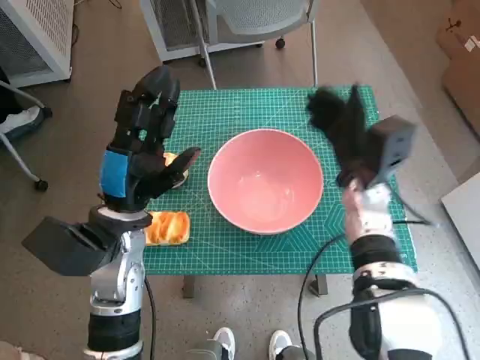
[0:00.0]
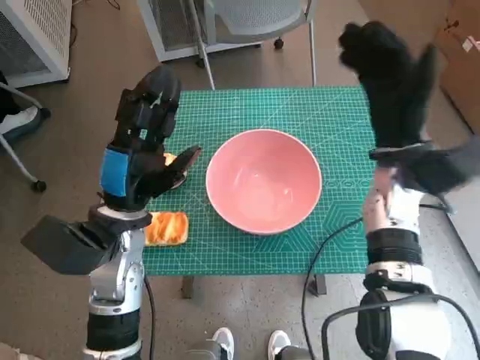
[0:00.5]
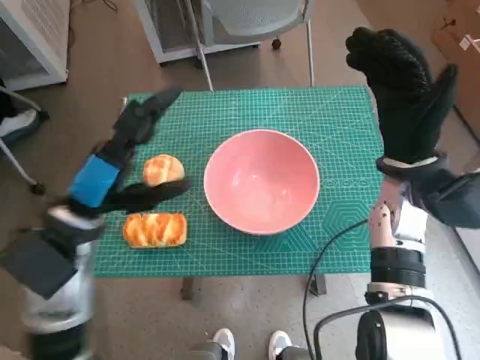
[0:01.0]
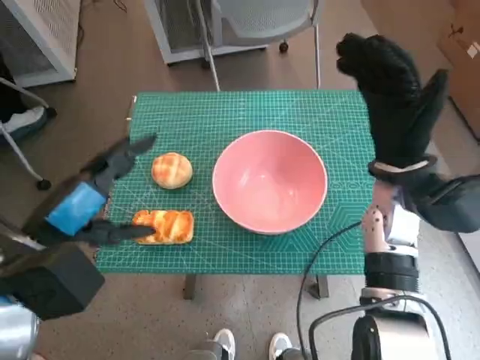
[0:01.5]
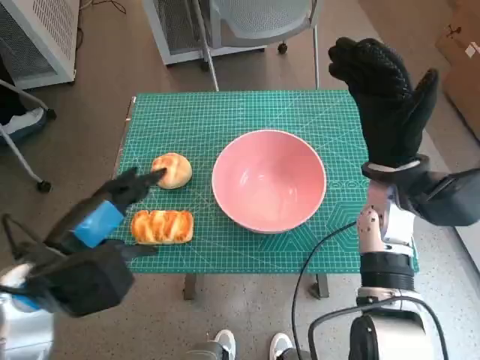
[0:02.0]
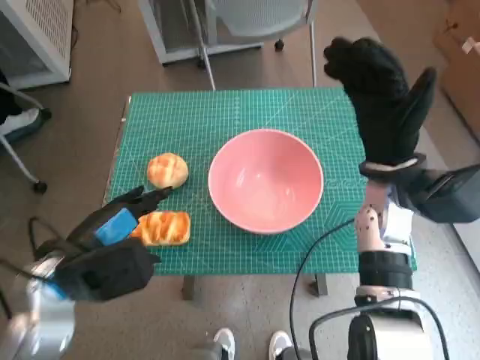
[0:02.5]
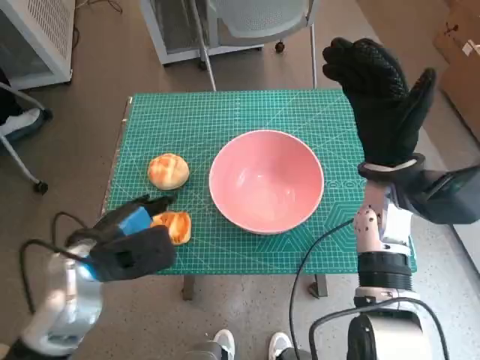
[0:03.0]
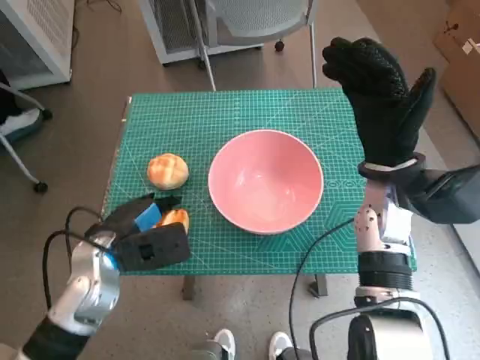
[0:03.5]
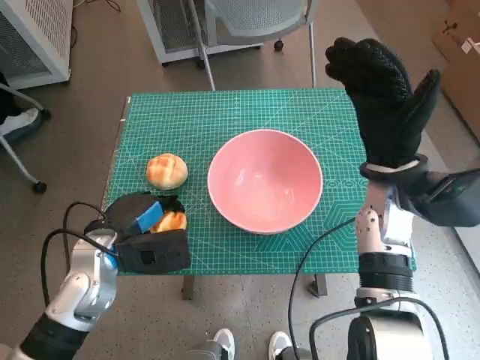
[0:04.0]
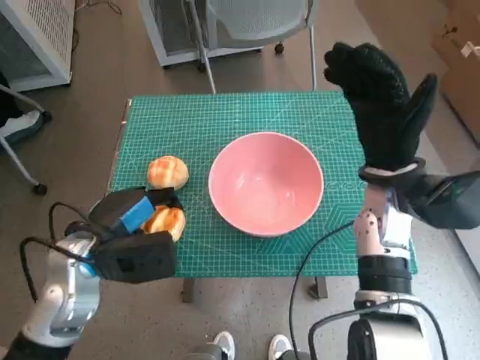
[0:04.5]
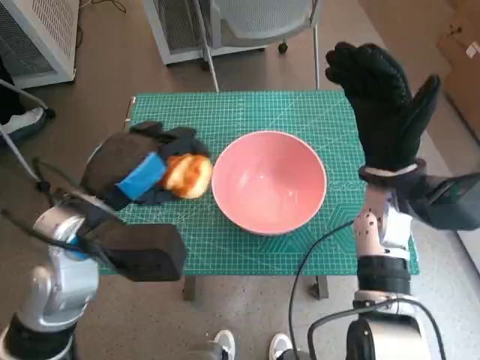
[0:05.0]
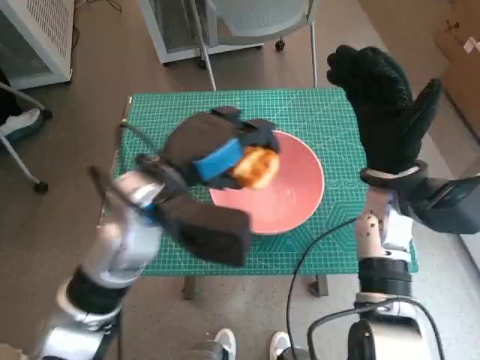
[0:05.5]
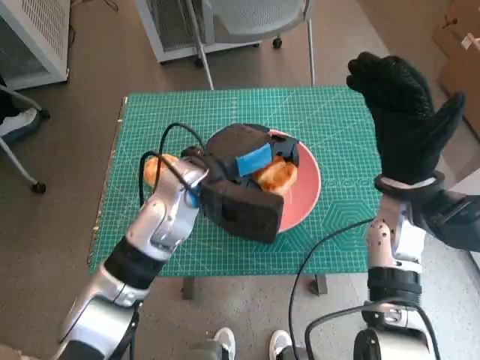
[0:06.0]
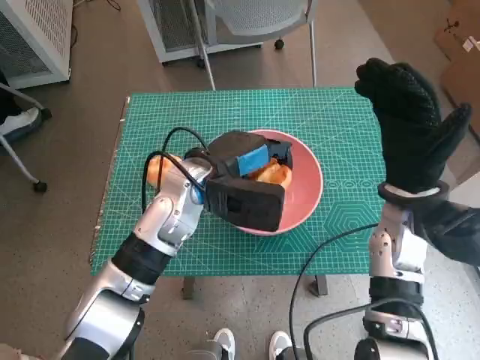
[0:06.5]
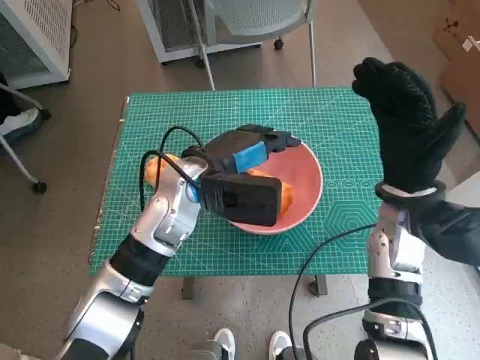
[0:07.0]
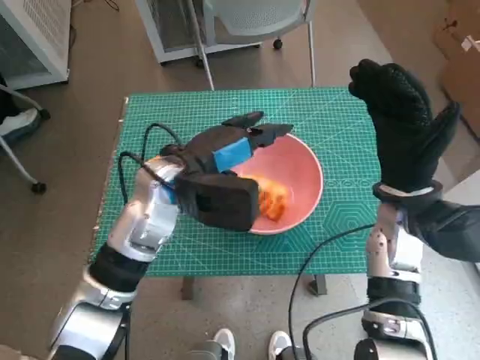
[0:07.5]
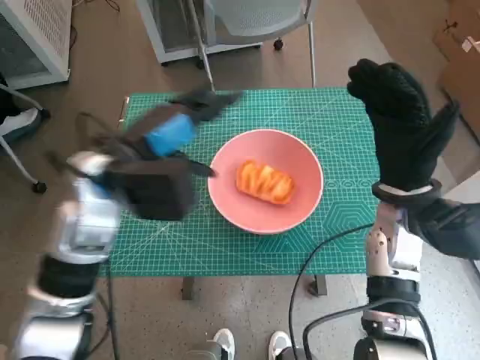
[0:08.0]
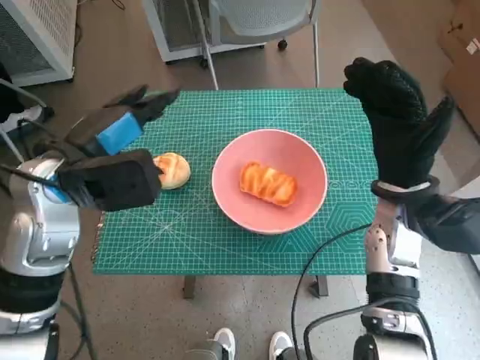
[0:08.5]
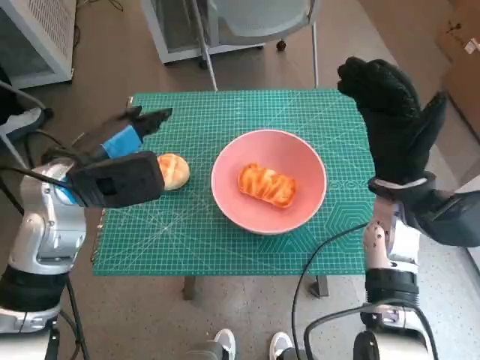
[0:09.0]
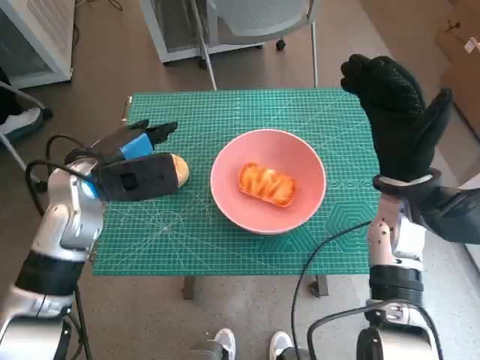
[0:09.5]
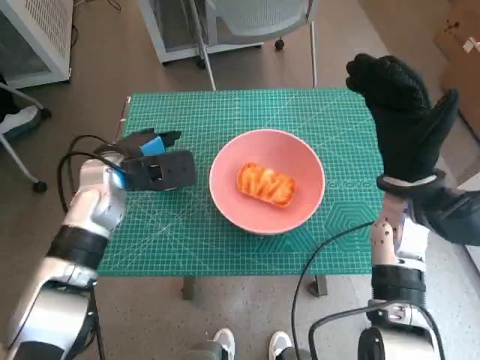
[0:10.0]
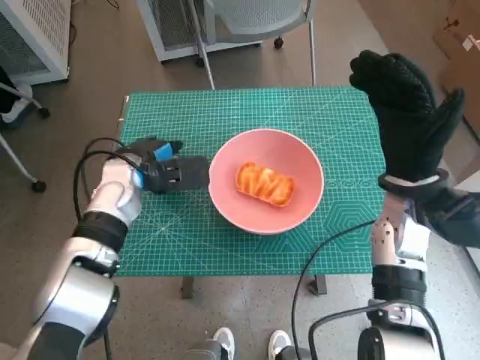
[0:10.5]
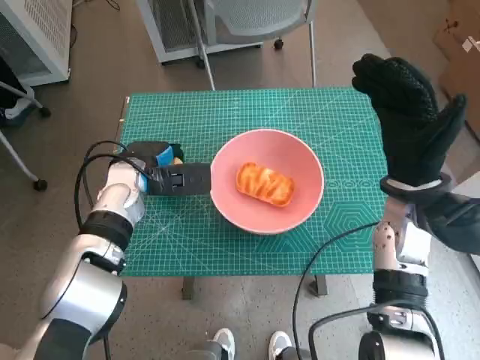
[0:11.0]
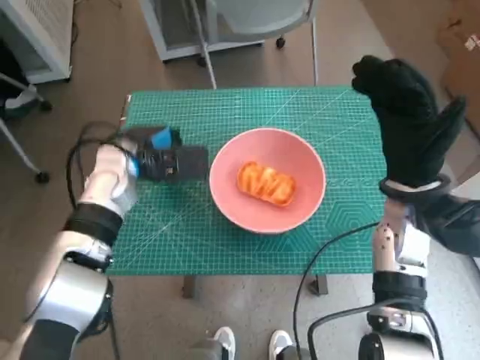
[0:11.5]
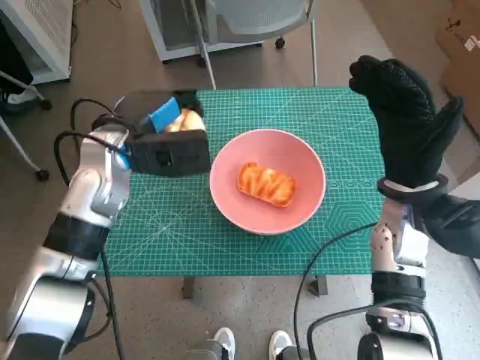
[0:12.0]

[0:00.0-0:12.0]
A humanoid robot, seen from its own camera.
Step, 0:00.0 to 0:03.5: Grasp the long bread with left hand.
Step, 0:04.0 to 0:07.0: Place the long bread in pink bowl with left hand.
Step, 0:07.5 to 0:11.0: Grasp the round bread with left hand.
0:00.0 to 0:02.0: The left hand shifts some 10 cm backward and to the left, while the right hand goes roughly 5 cm upward.
0:02.0 to 0:04.0: The left hand goes approximately 10 cm downward and forward.
0:04.0 to 0:06.0: The left hand is displaced to the right, upward and forward by some 15 cm.
0:06.0 to 0:08.0: The left hand shifts about 10 cm to the left.
0:08.0 to 0:10.0: The left hand goes approximately 5 cm downward.
0:10.0 to 0:12.0: The left hand ends up some 5 cm from where it was.

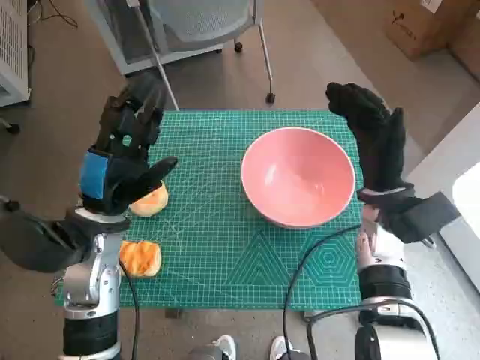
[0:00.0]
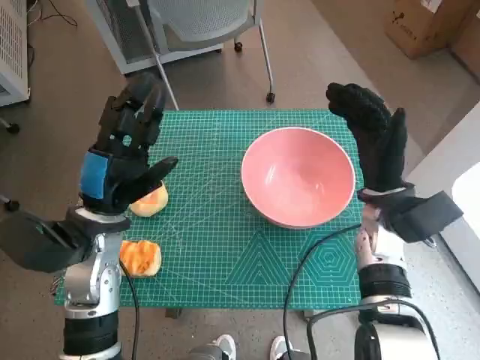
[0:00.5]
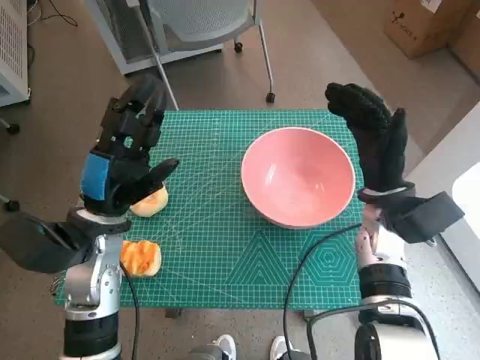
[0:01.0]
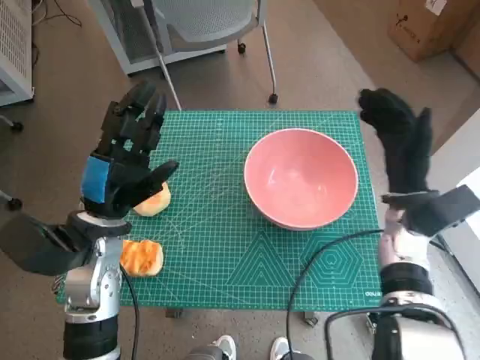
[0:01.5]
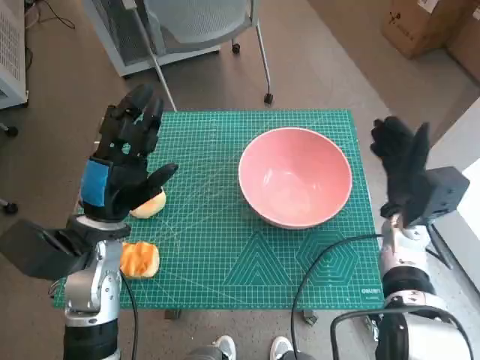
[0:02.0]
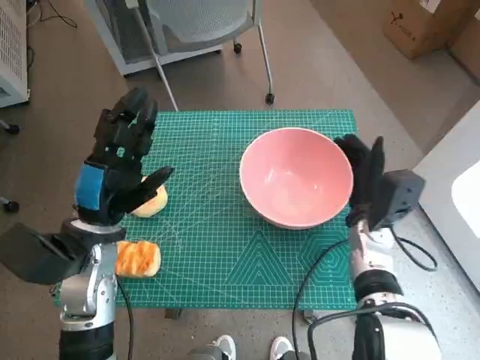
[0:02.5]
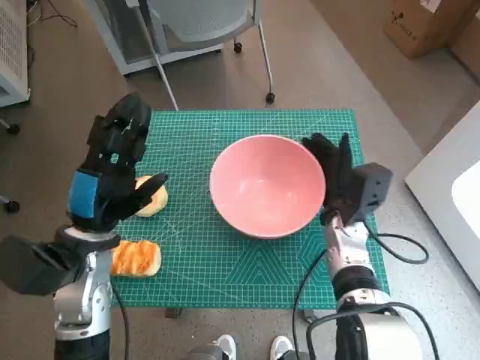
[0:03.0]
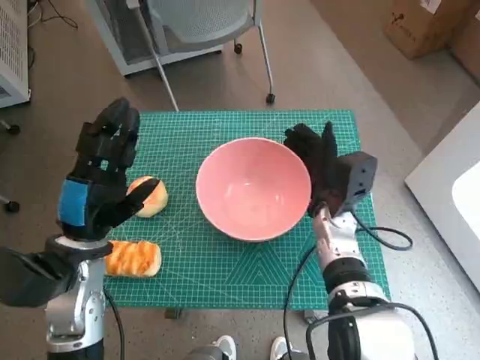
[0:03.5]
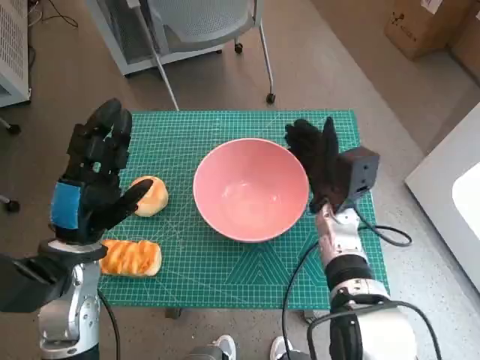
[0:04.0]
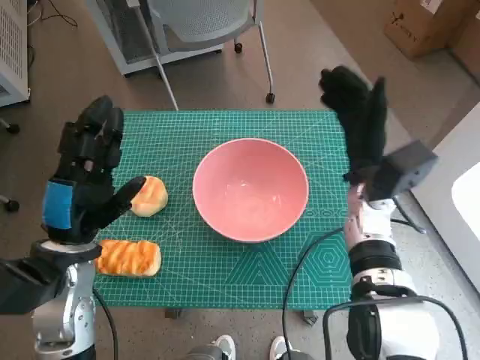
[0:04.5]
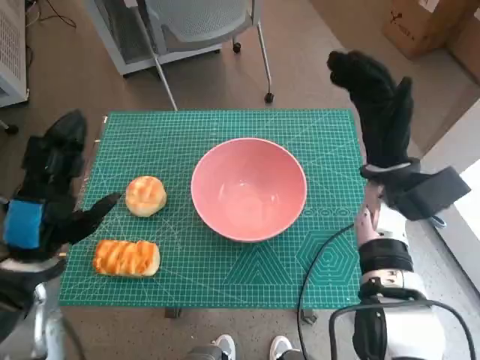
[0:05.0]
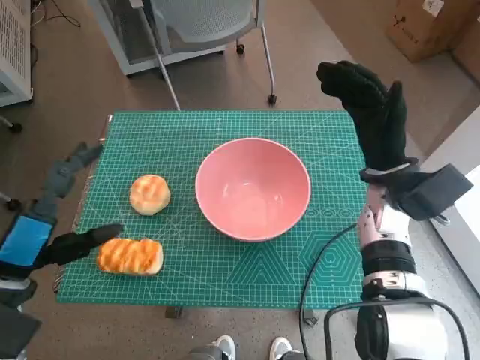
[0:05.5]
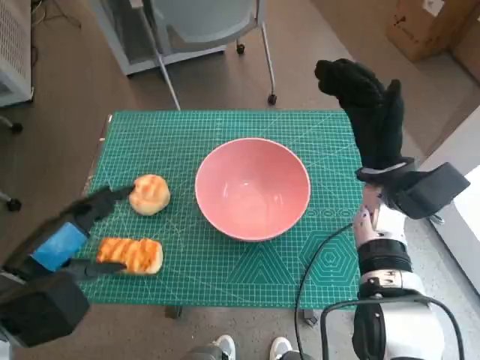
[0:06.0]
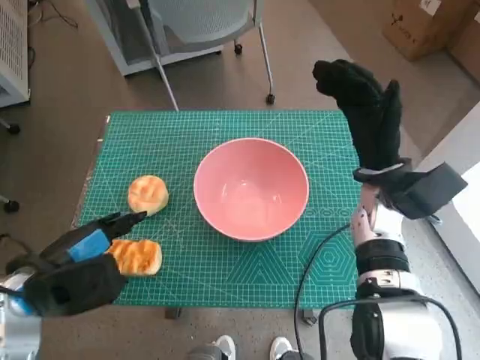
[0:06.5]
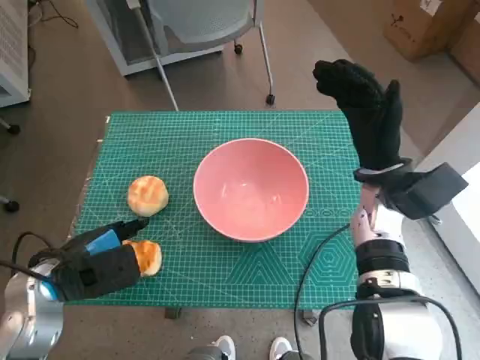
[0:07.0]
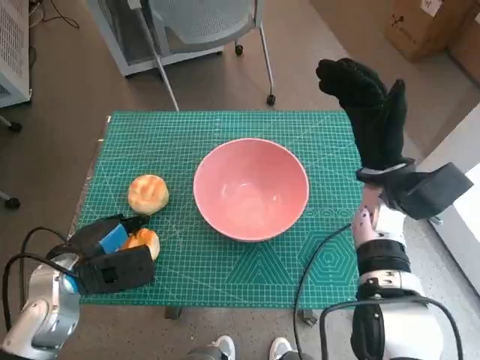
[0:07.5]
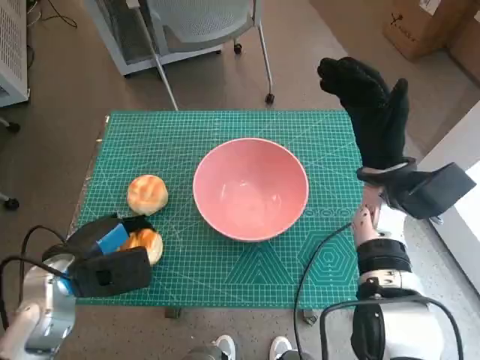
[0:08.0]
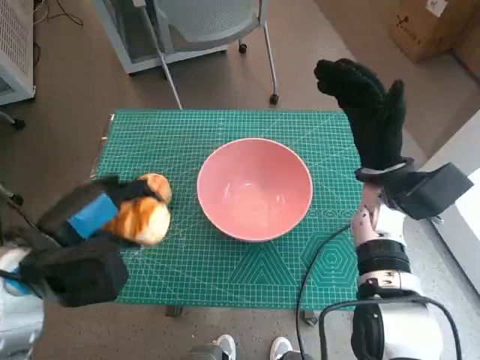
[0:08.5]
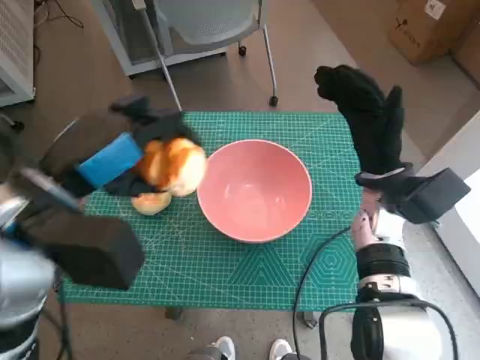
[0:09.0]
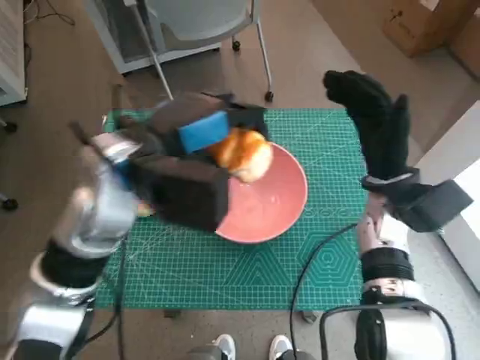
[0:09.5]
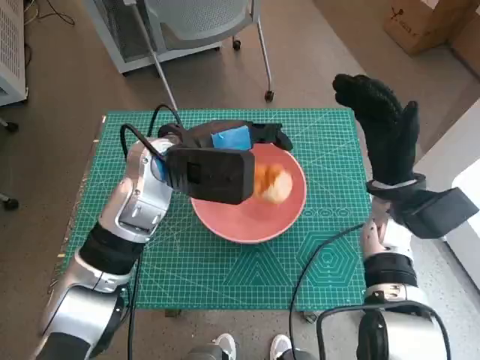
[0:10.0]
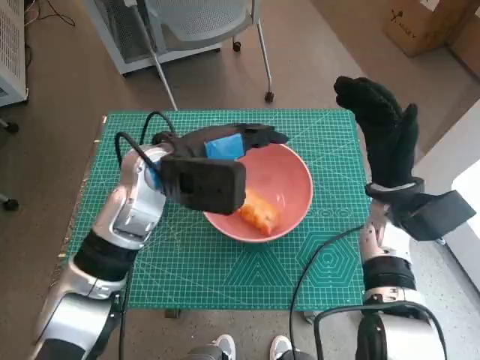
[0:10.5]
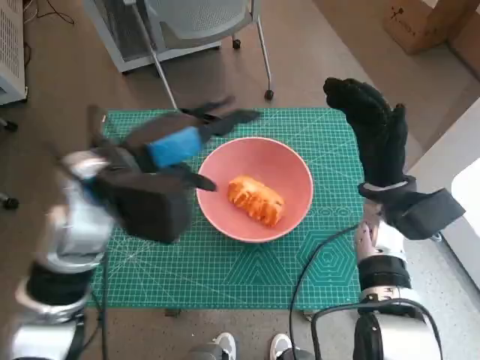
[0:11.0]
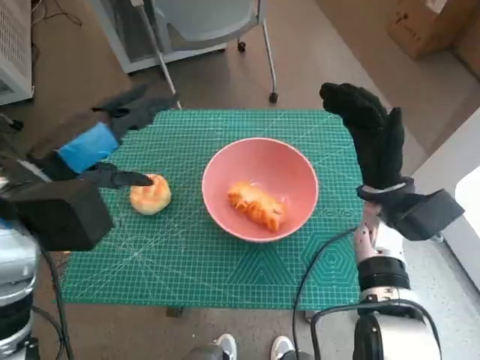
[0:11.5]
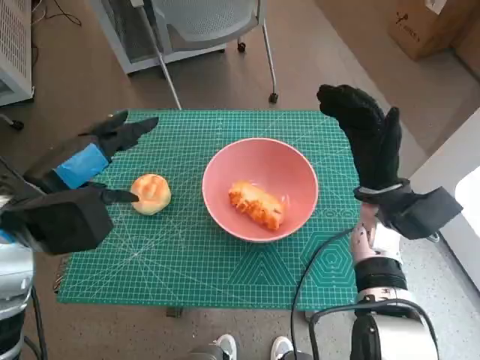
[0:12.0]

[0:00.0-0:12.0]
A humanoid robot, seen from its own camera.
Step, 0:00.0 to 0:03.5: Move the pink bowl to the center of table with right hand.
Step, 0:04.0 to 0:07.5: Grasp the long bread with left hand.
Step, 0:08.0 to 0:10.0: Place the long bread in pink bowl with left hand.
0:02.0 to 0:04.0: The right hand goes approximately 10 cm to the left.
0:04.0 to 0:06.0: The left hand moves backward, some 5 cm; the right hand travels upward and to the right by some 10 cm.
0:06.0 to 0:08.0: The left hand heads downward and forward, covering roughly 10 cm.
0:08.0 to 0:10.0: The left hand moves to the right, forward and upward, roughly 20 cm.
0:10.0 to 0:12.0: The left hand shifts about 15 cm to the left and backward.

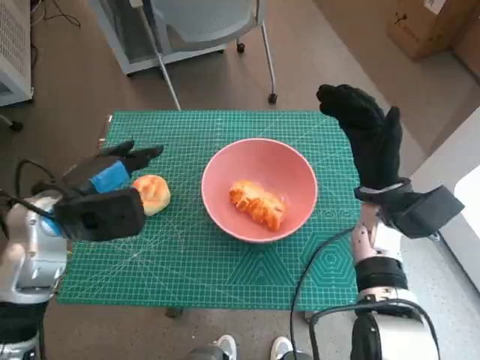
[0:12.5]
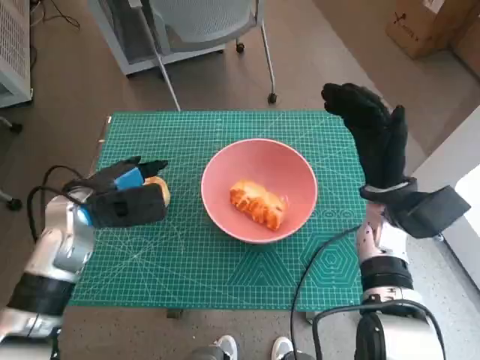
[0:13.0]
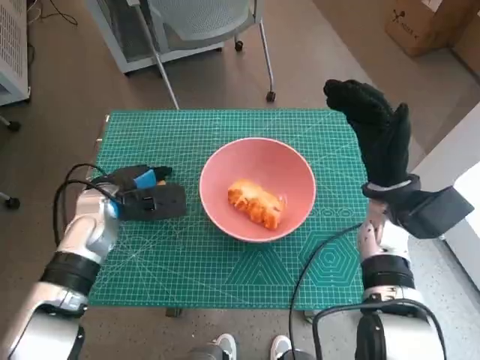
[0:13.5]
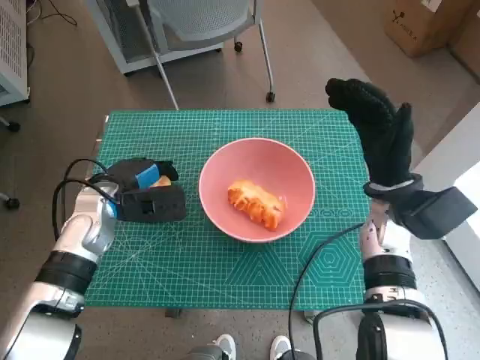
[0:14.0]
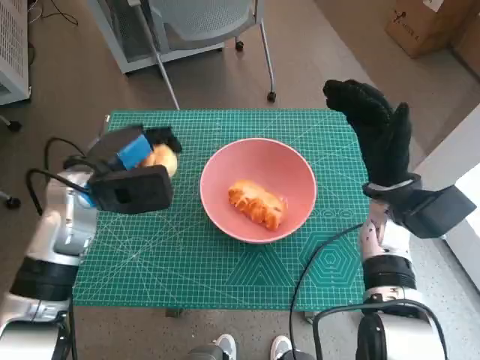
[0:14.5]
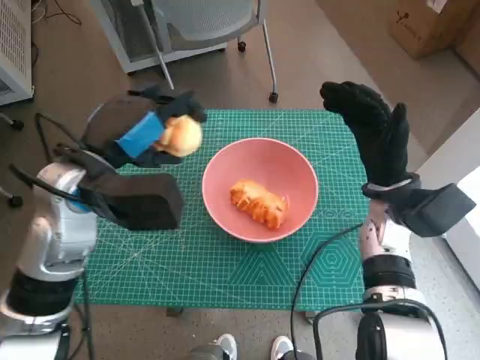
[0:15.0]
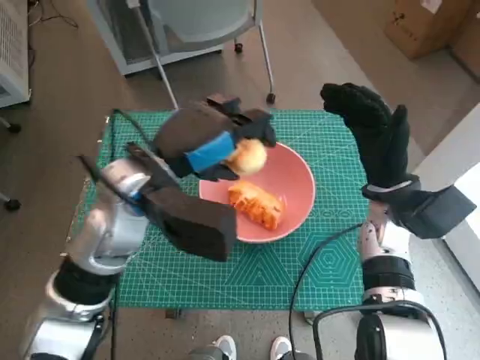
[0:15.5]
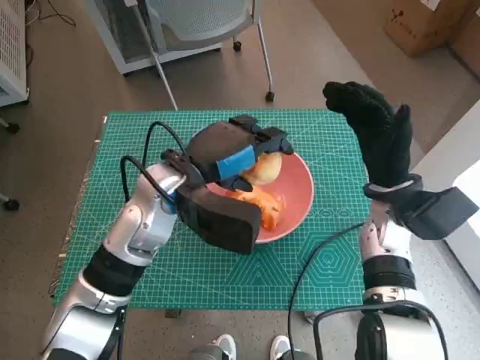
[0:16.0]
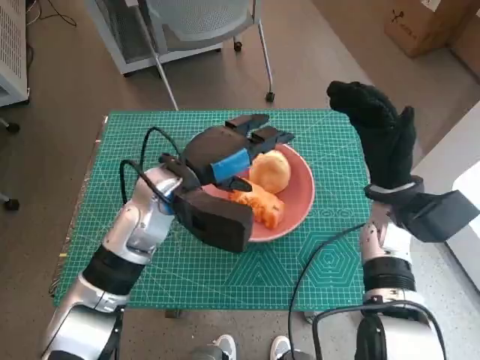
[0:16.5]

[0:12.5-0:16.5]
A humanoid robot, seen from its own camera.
Step, 0:14.5 to 0:16.5: Place the round bread in pink bowl with left hand.
0:12.5 to 0:14.5: The left hand moves about 10 cm downward and comes back.
0:14.5 to 0:16.5: The left hand is displaced to the right by roughly 10 cm.
